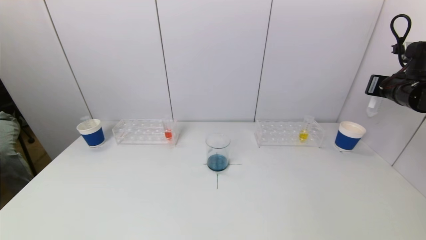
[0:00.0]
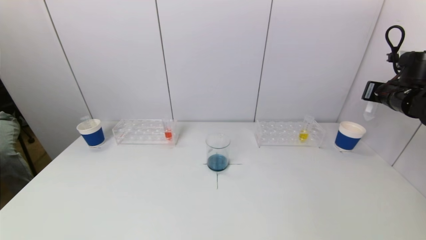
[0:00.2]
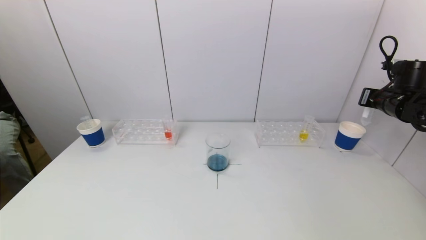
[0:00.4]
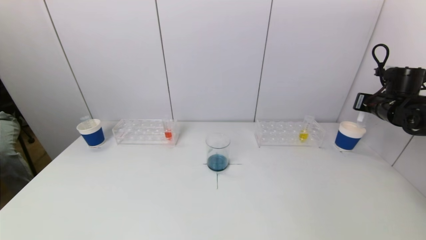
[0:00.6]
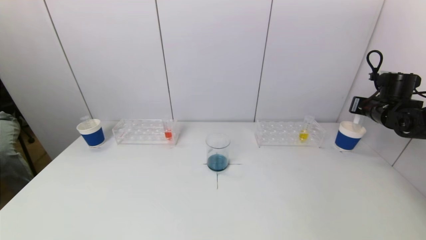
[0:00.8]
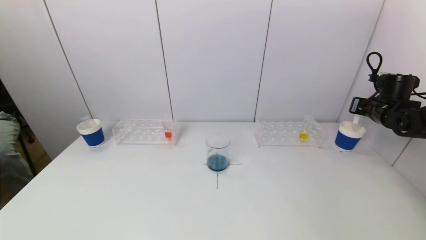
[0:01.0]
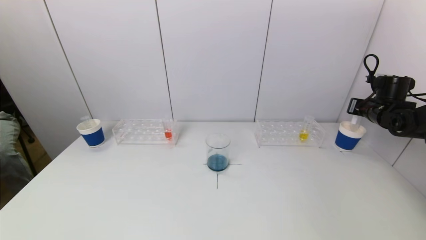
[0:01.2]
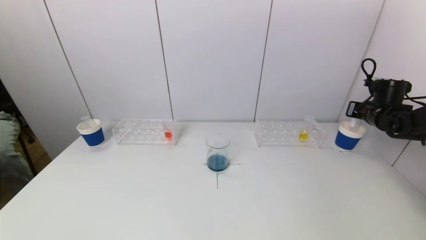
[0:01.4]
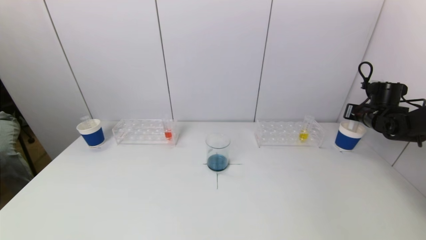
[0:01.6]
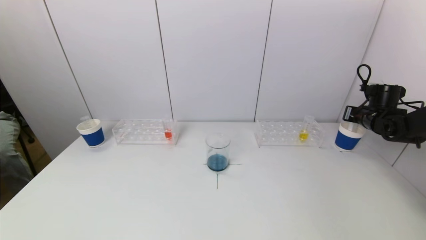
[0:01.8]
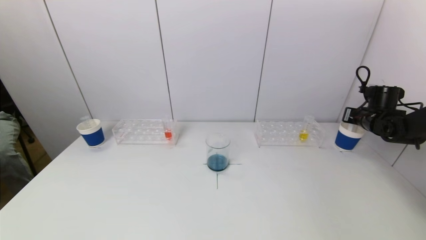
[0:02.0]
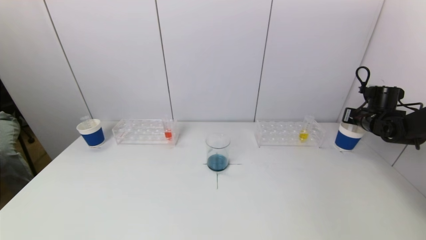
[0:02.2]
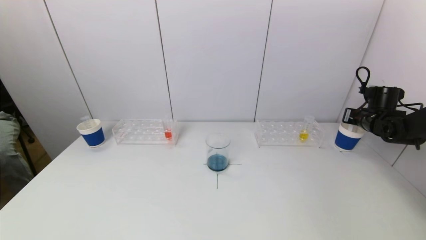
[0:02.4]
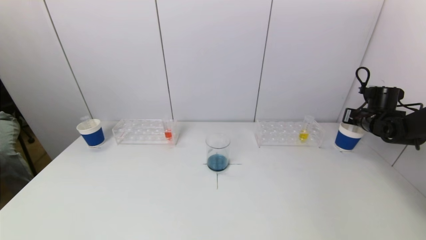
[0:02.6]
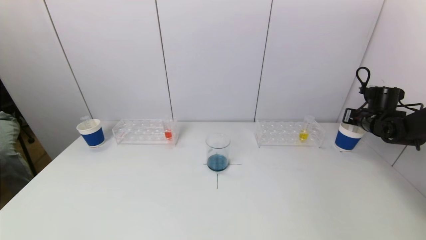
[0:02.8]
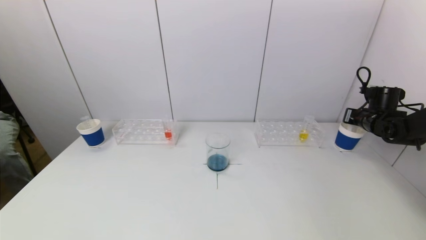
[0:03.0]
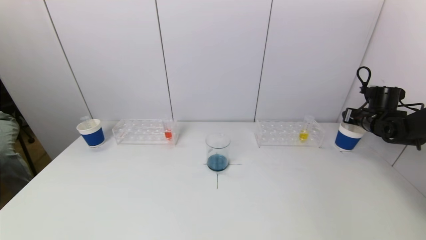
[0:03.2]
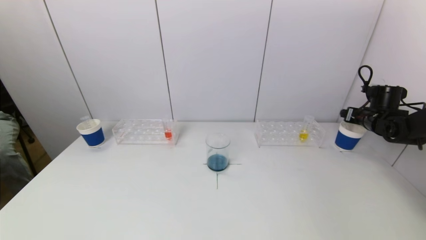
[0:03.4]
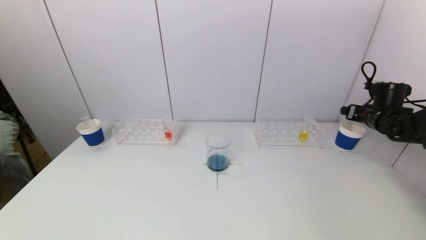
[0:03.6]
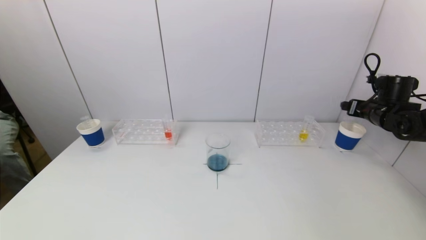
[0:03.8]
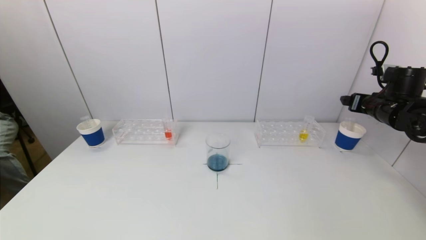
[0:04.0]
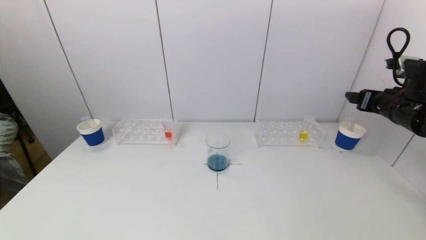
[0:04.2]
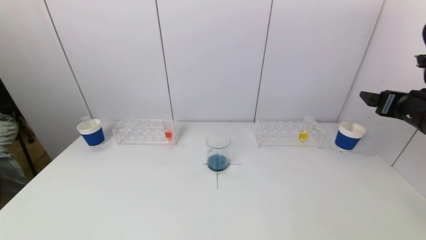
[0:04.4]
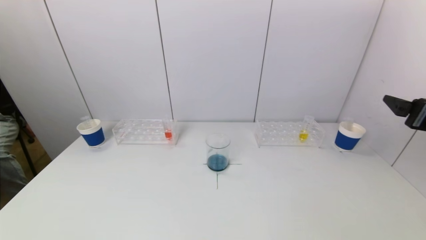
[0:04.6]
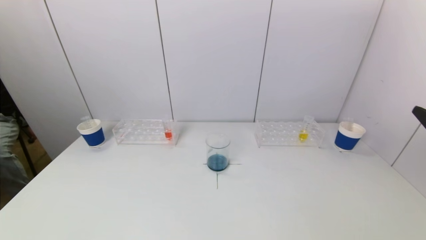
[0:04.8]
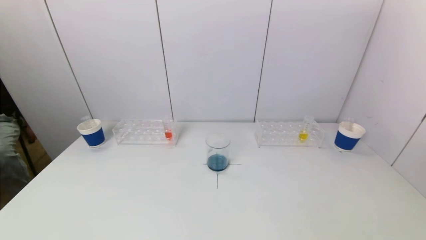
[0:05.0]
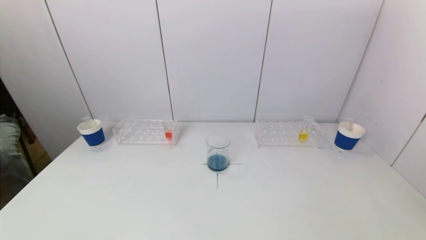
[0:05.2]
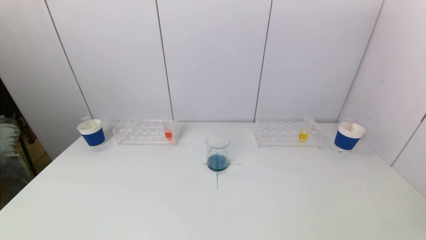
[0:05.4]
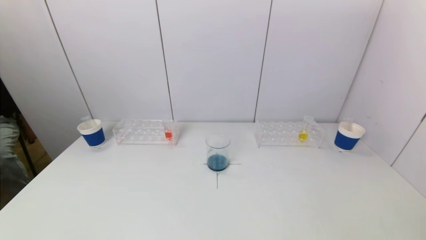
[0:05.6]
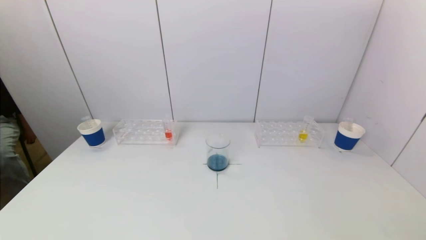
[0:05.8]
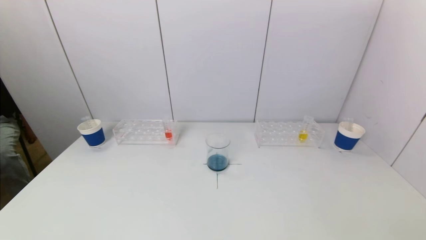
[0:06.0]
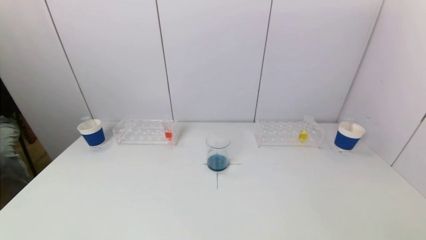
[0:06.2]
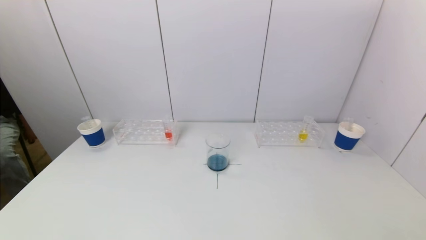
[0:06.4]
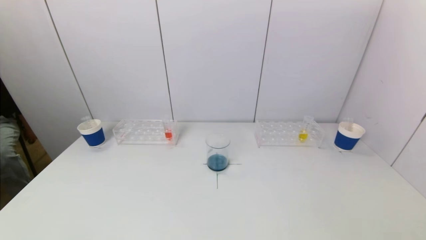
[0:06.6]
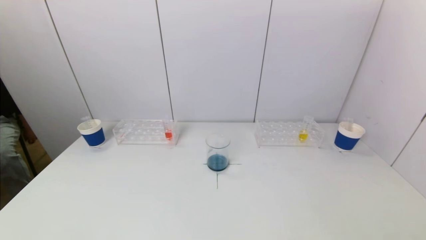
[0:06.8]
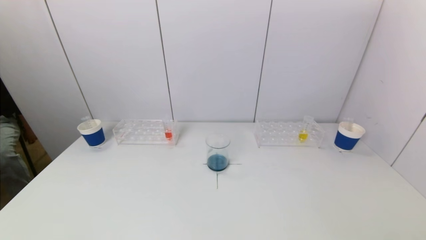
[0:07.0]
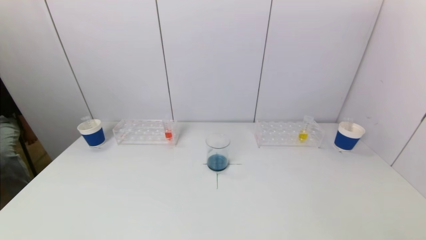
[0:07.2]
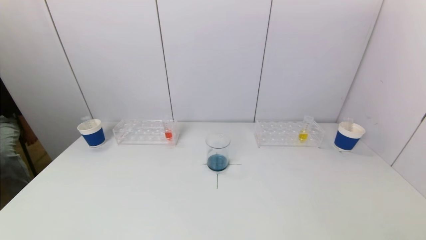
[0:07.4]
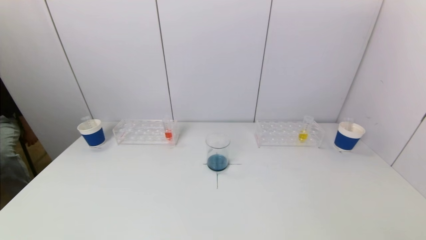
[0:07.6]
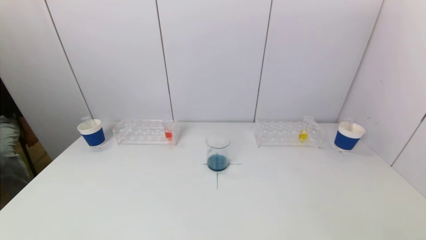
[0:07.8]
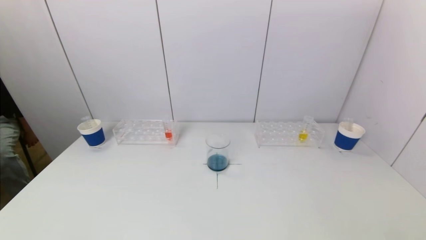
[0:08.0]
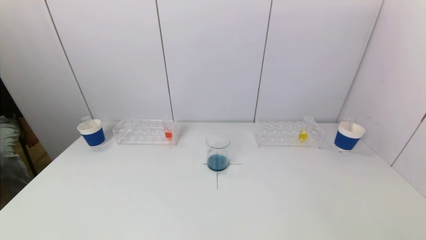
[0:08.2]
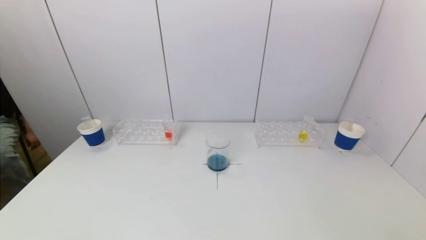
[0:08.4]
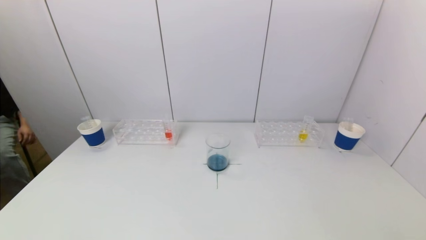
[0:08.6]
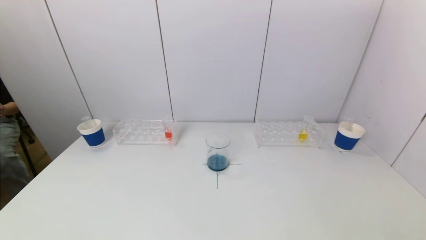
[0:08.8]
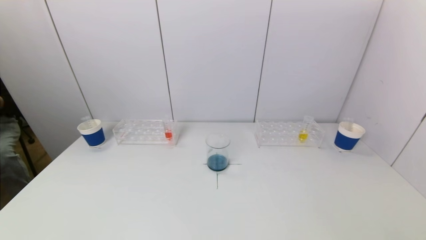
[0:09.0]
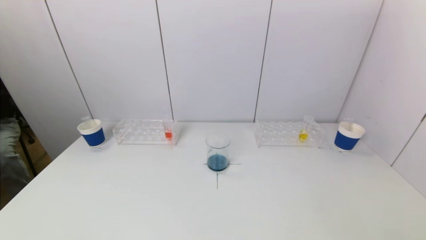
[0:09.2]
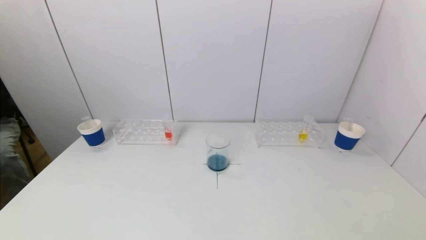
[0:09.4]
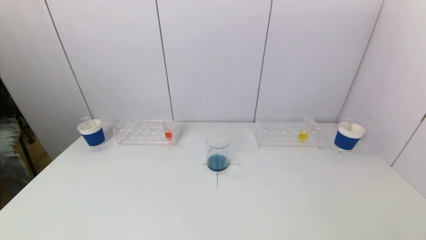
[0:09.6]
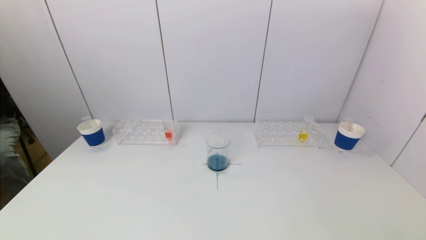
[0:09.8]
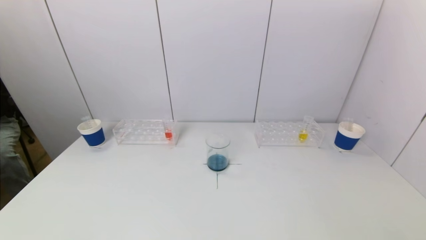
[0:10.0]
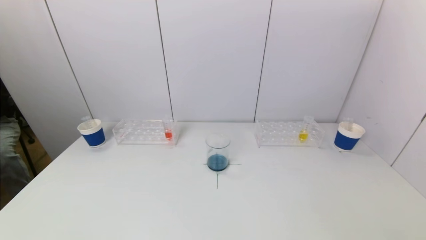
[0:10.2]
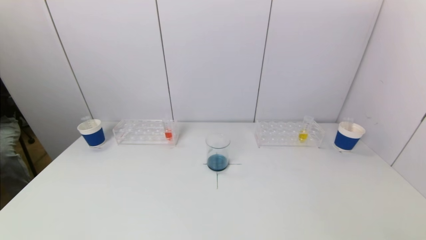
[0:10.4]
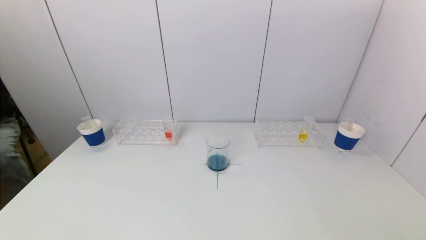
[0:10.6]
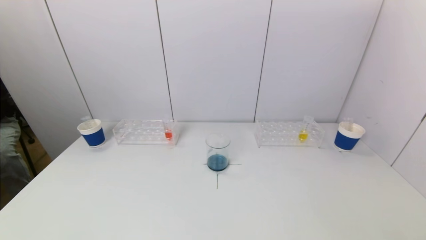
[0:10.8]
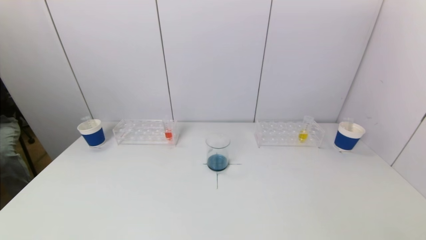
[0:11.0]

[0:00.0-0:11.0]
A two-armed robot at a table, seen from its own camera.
Task of the whole recording: pick up a test tube with pigment on left test tube rack and a test tube with pigment on right test tube rack by grippers and pour them into the beaker.
Step, 0:00.0 to 0:03.2: Place the test tube into the paper cup with the right gripper.
0:00.0 to 0:01.6: The right gripper is displaced downward and forward by roughly 15 cm.
0:01.6 to 0:03.2: The right gripper opens.
0:03.2 to 0:04.8: The right gripper goes about 30 cm backward.
0:07.8 to 0:11.0: The two grippers keep their place.
